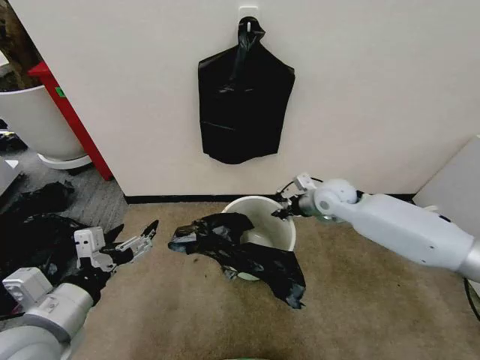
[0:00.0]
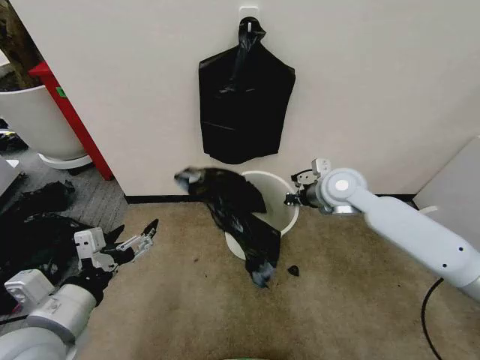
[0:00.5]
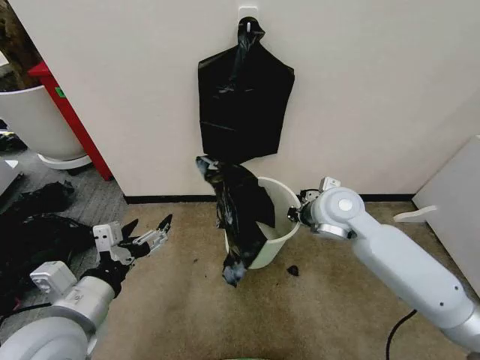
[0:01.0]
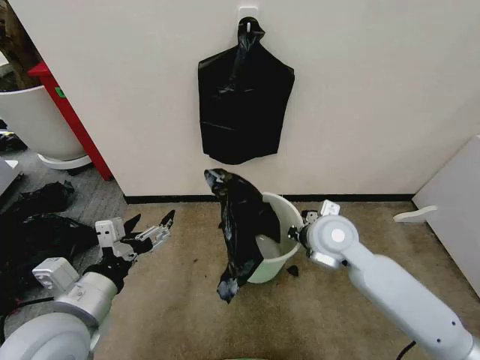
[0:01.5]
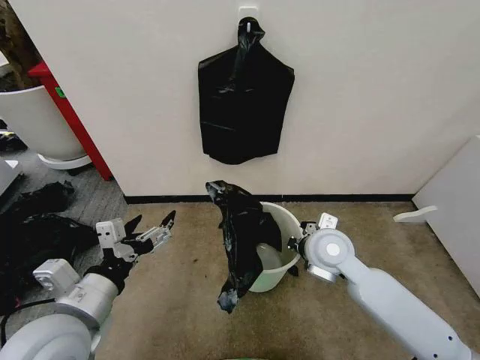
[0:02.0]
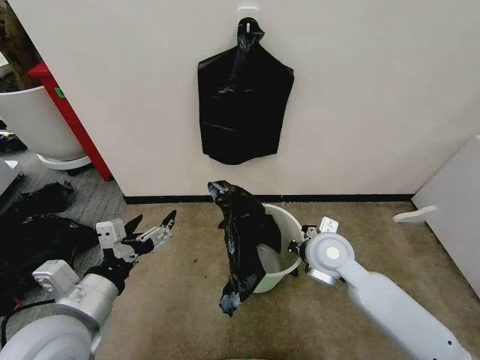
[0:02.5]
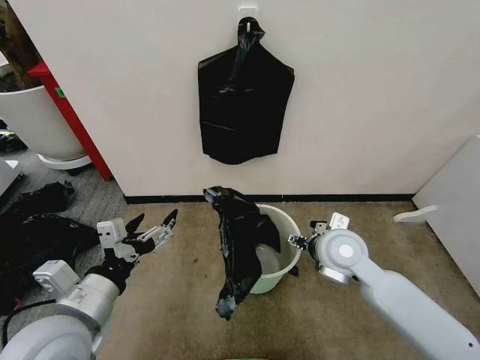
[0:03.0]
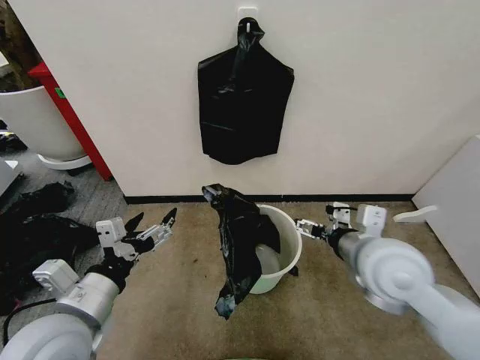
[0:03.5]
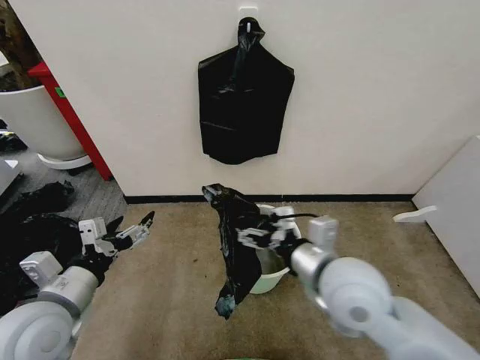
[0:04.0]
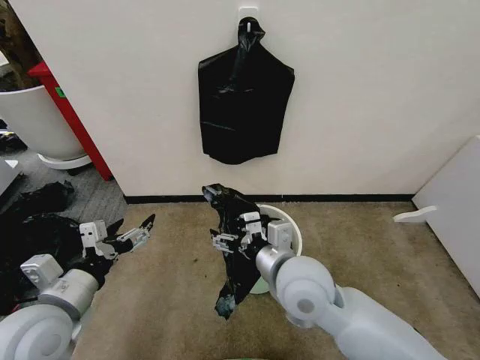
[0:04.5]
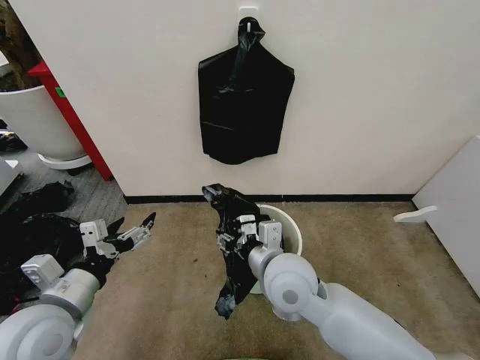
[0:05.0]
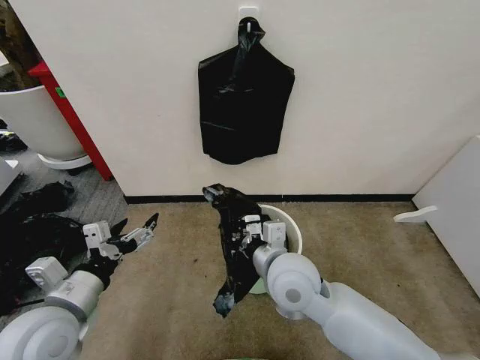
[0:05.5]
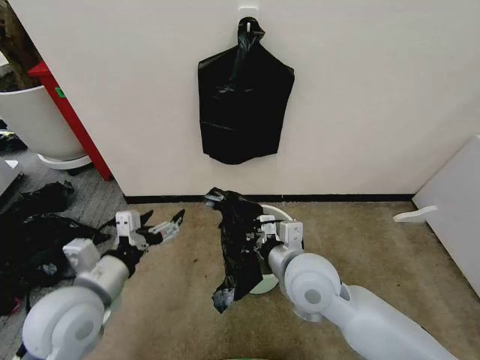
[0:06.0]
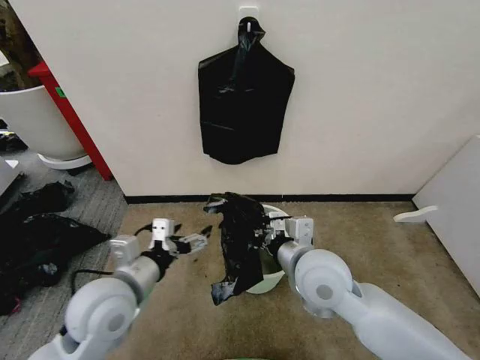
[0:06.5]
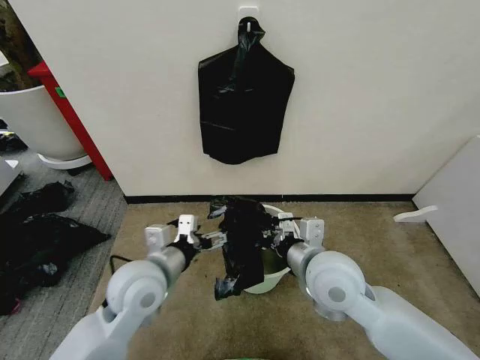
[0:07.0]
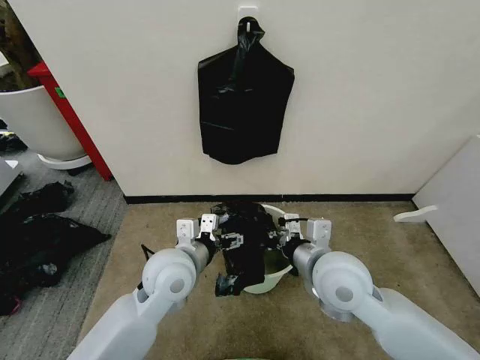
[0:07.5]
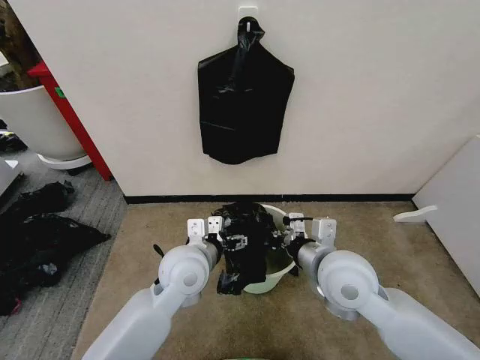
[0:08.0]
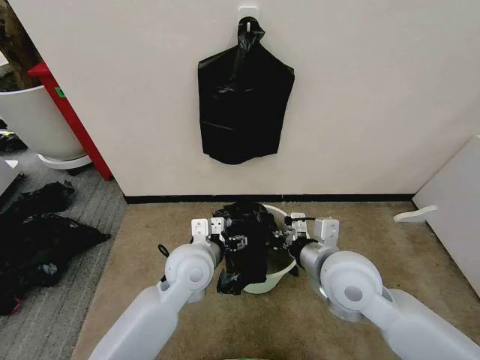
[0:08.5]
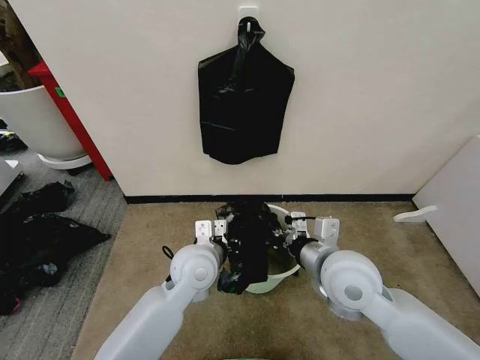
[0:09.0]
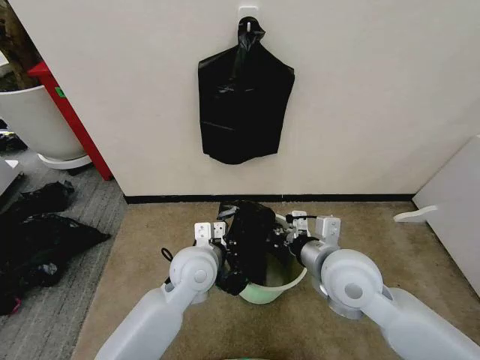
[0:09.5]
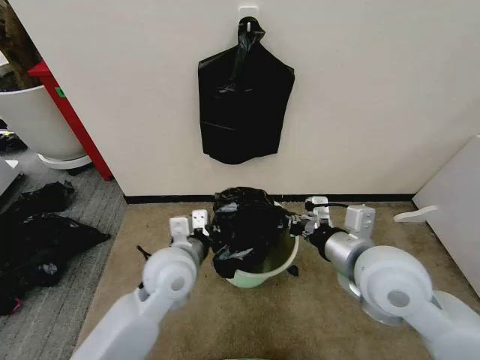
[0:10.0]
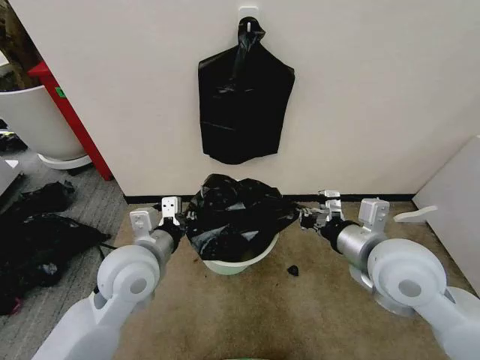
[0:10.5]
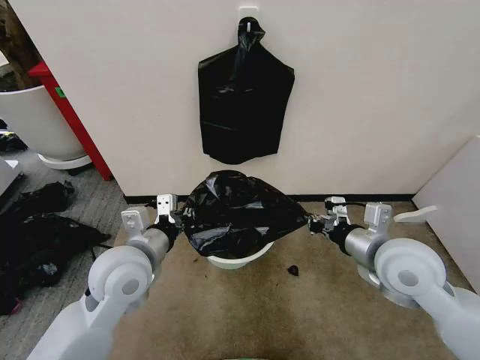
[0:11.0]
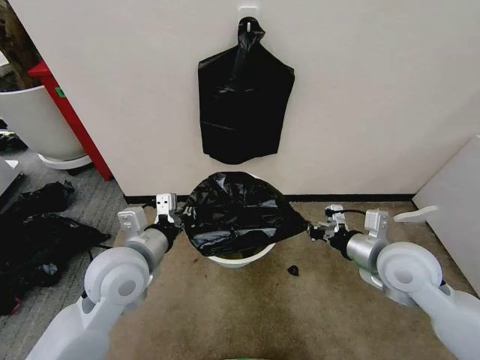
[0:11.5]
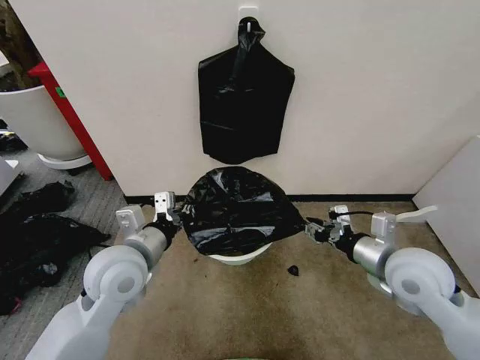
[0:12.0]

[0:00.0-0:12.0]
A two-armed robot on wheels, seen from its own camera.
Task of the whole recording: Place the garbage bag over the trash bin.
0:00.0 to 0:02.0: The right gripper travels backward by about 15 cm.
0:02.0 to 0:04.0: The left gripper travels to the left by about 5 cm; the right gripper is displaced backward and upward by some 15 cm, and opens.
0:04.0 to 0:06.0: The right gripper ends up some 5 cm from where it was, and closes.
0:06.0 to 0:08.0: The right gripper travels to the right by some 5 cm. The left gripper heads to the right and forward, covering some 20 cm.
0:08.0 to 0:10.0: The left gripper closes up. Meanwhile the right gripper travels upward by some 5 cm.
0:10.0 to 0:12.0: The right gripper shifts roughly 10 cm to the right, and opens its fingers. The left gripper travels to the left by some 10 cm.

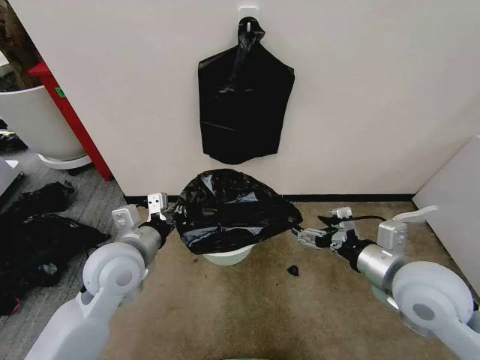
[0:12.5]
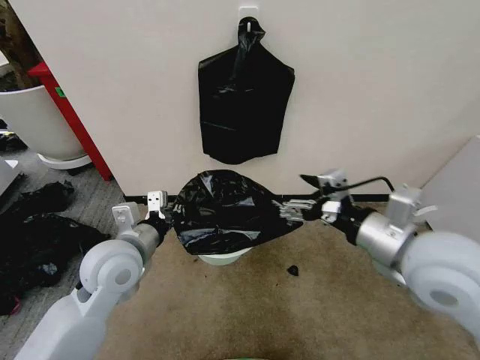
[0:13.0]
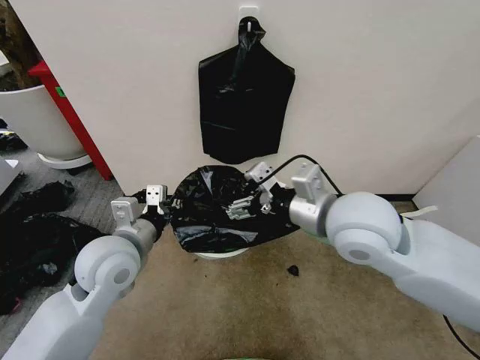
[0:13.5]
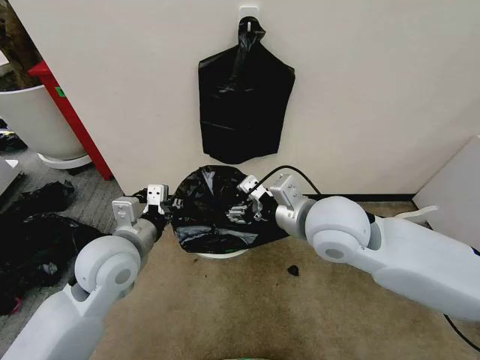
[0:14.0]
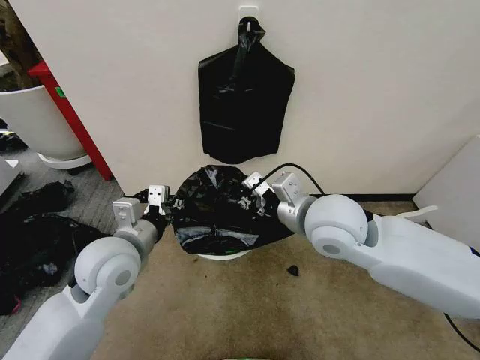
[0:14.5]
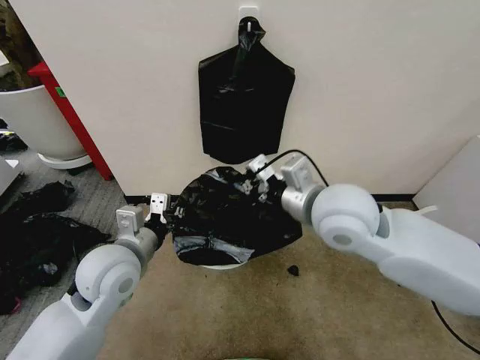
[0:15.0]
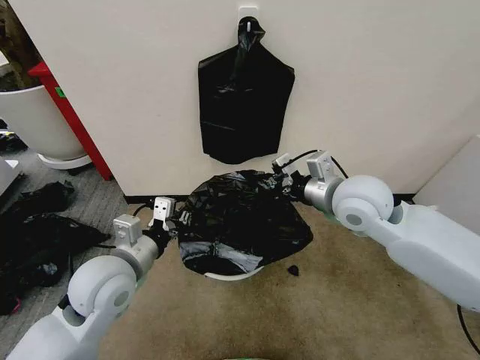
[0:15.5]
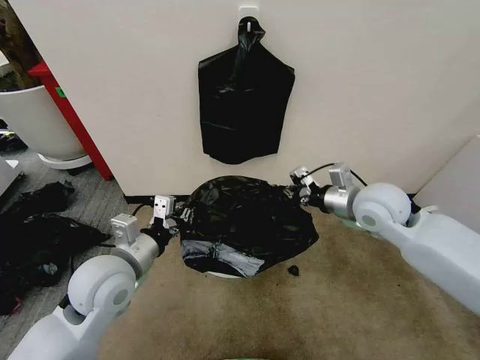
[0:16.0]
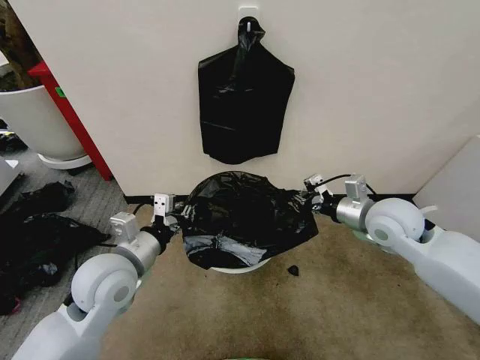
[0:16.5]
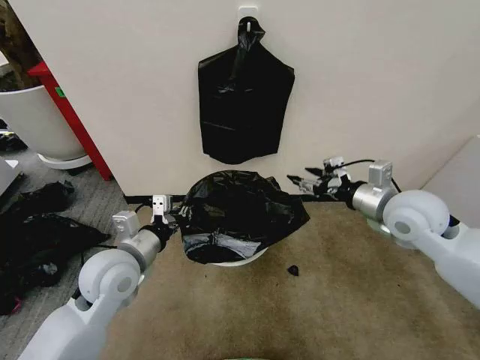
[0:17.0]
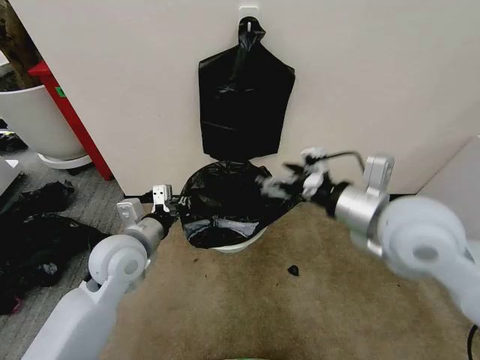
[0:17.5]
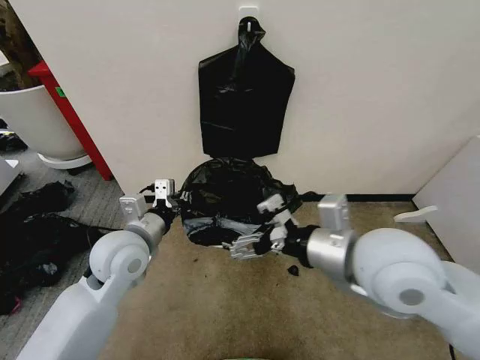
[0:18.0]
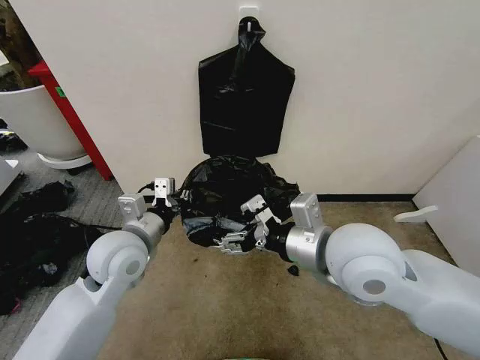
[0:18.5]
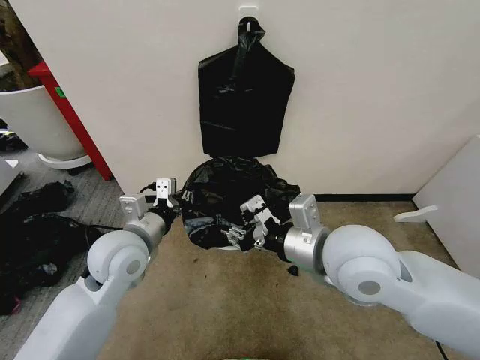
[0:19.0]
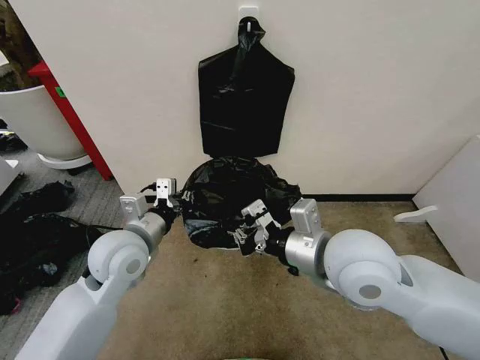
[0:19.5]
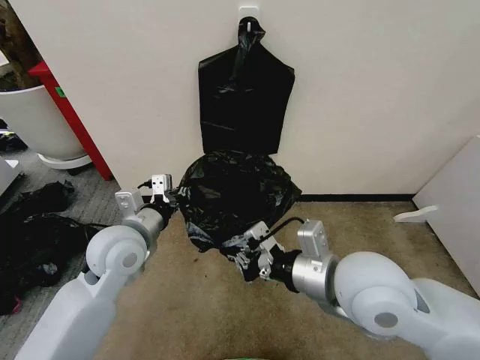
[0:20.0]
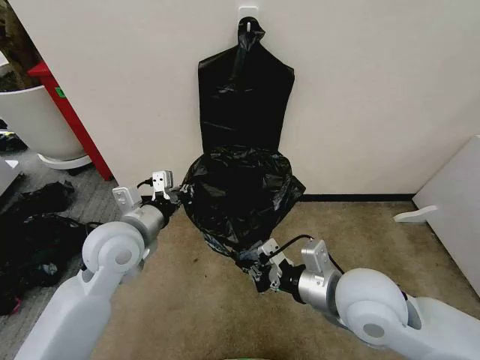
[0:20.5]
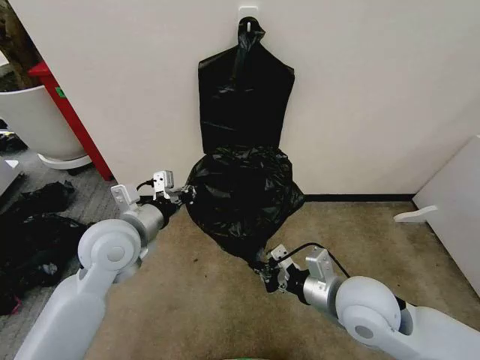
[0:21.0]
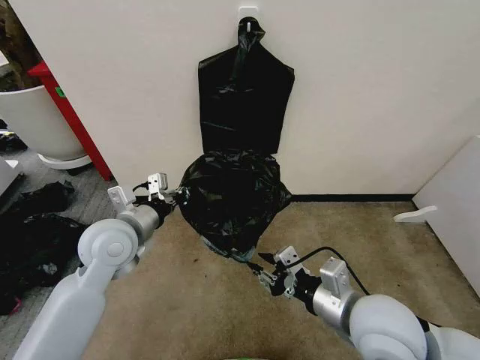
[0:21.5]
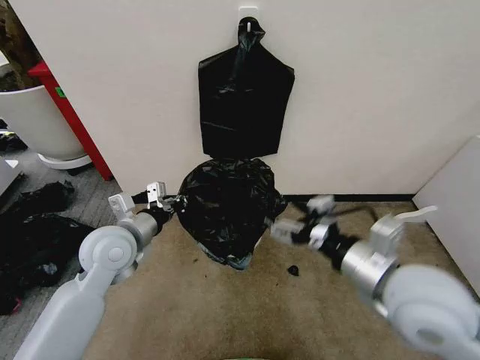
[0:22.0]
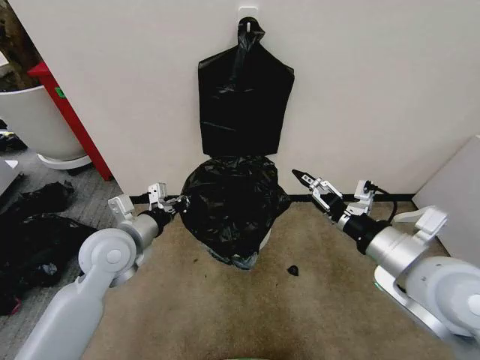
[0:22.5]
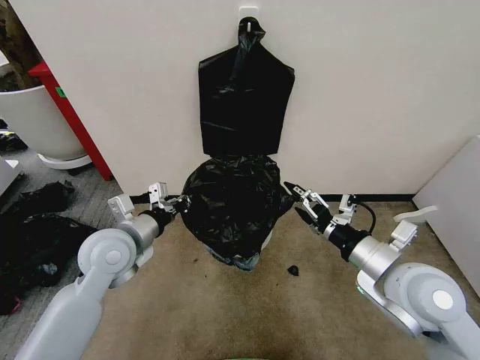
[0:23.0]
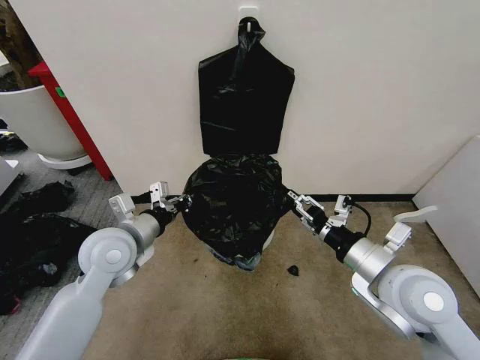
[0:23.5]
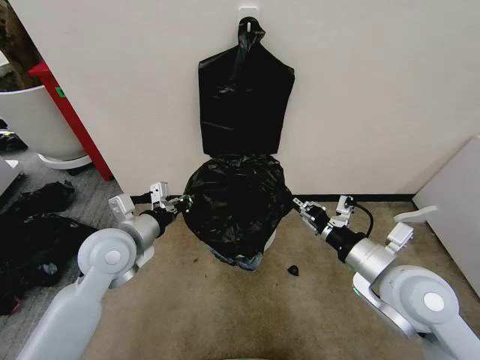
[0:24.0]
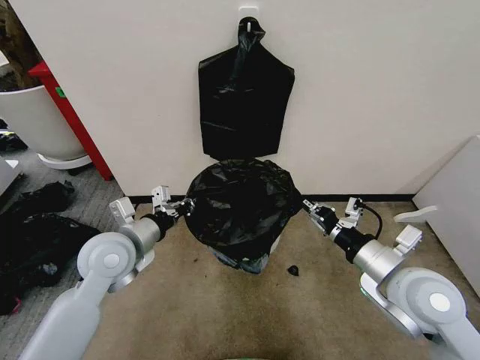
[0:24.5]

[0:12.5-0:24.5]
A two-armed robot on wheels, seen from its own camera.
Task of the whole recording: Place the garbage bag over the trash bin.
0:12.5 to 0:14.5: The right gripper goes some 15 cm to the left, forward and upward, and closes up.
0:14.5 to 0:16.5: The right gripper heads to the right, covering roughly 15 cm.
0:16.5 to 0:18.5: The right gripper is displaced to the left, backward and upward by approximately 20 cm, and opens up.
0:18.5 to 0:20.5: The right gripper is displaced downward by approximately 10 cm, and closes its fingers.
0:20.5 to 0:22.5: The right gripper travels to the right and upward by about 10 cm, and opens its fingers.
0:22.5 to 0:24.5: The right gripper goes some 5 cm downward, and closes up.

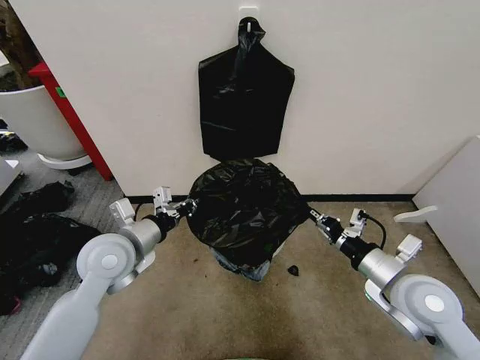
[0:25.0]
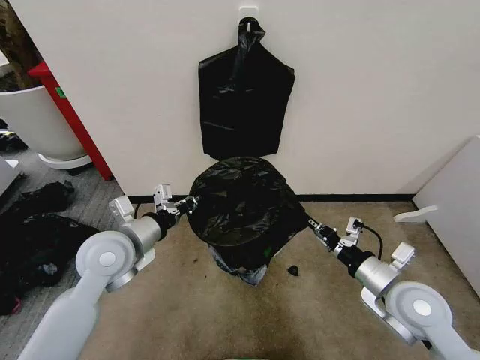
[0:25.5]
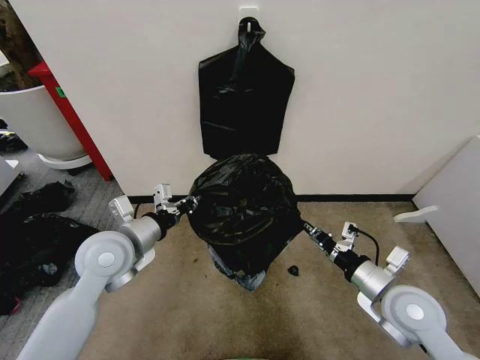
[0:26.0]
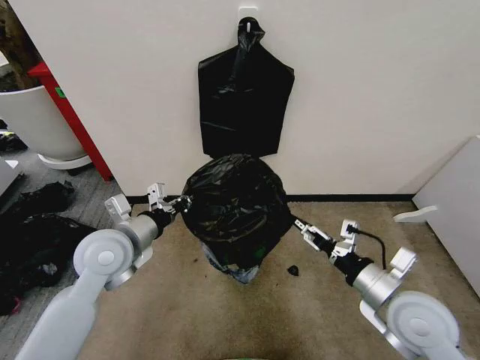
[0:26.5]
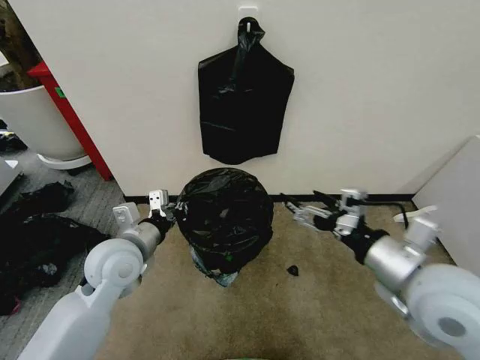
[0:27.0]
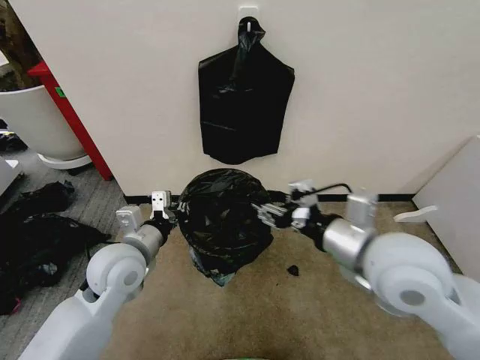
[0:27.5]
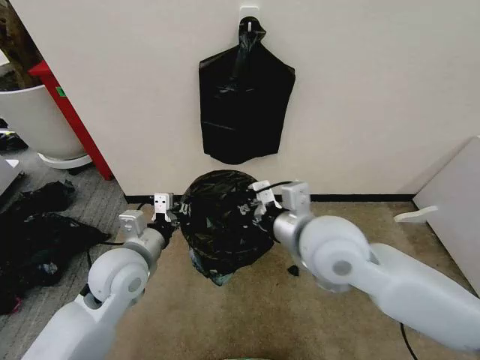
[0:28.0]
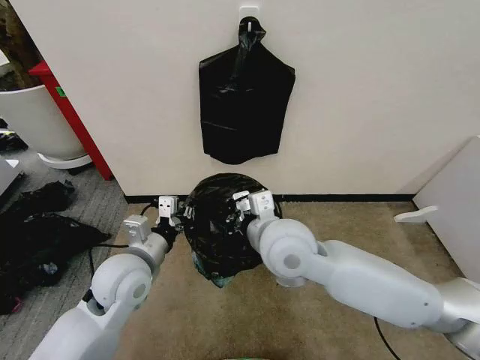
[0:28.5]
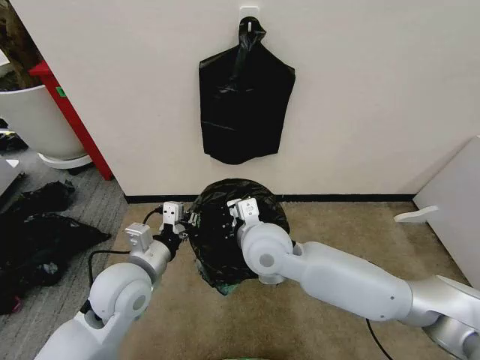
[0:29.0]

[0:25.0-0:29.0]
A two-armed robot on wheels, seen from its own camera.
Task of the whole recording: Place the garbage bag over the trash bin.
0:25.0 to 0:27.0: The right gripper heads upward, covering roughly 10 cm, and opens.
0:27.0 to 0:29.0: The right gripper shifts roughly 25 cm to the left and forward, and closes its fingers; the left gripper shifts by about 5 cm.
